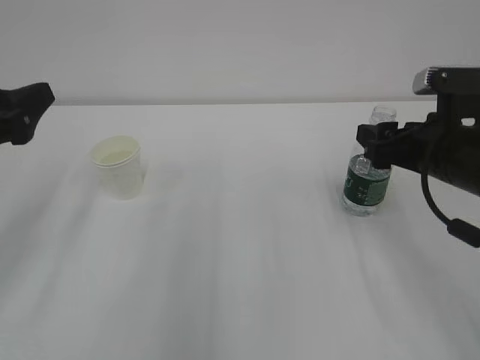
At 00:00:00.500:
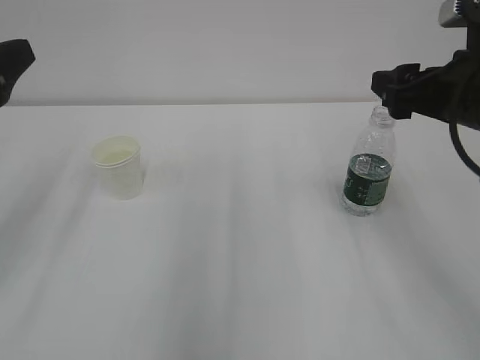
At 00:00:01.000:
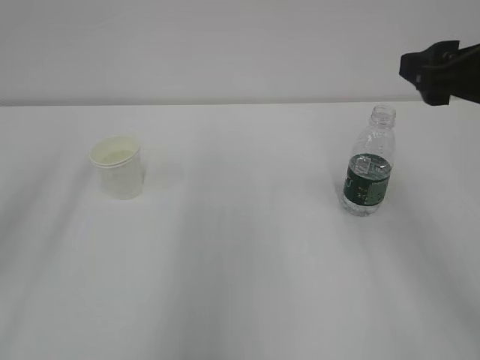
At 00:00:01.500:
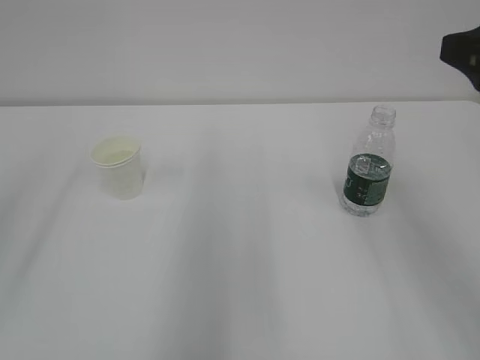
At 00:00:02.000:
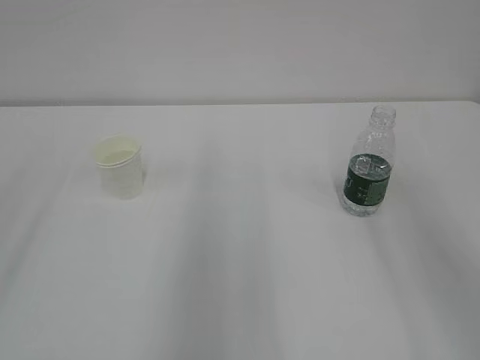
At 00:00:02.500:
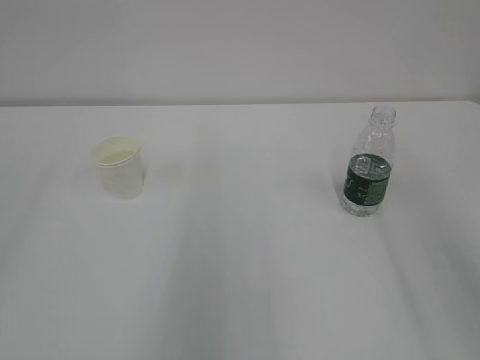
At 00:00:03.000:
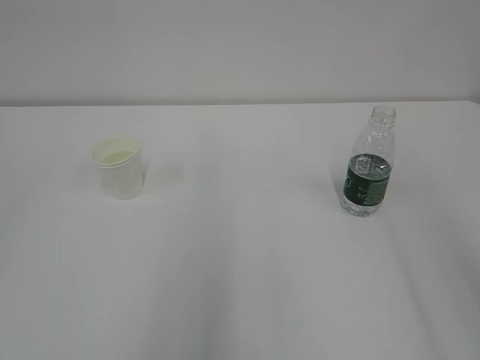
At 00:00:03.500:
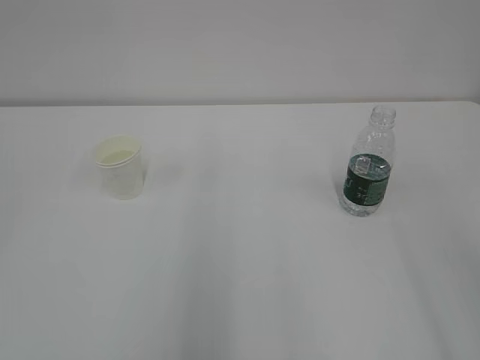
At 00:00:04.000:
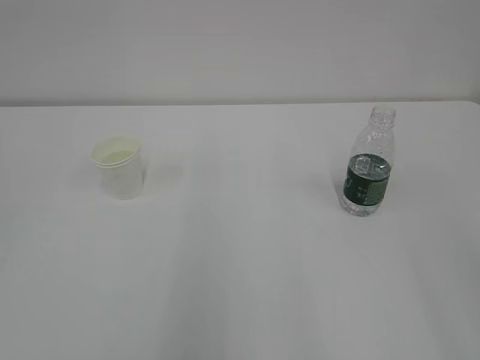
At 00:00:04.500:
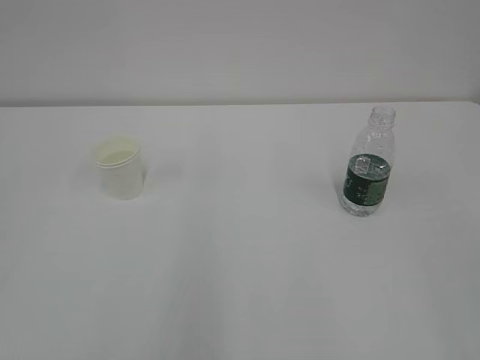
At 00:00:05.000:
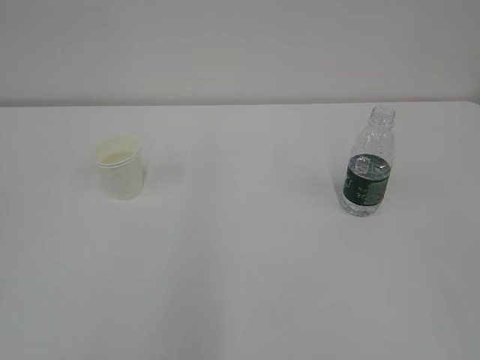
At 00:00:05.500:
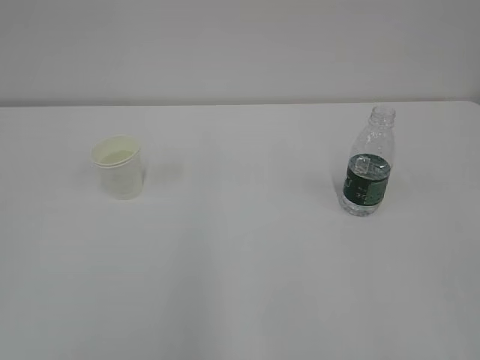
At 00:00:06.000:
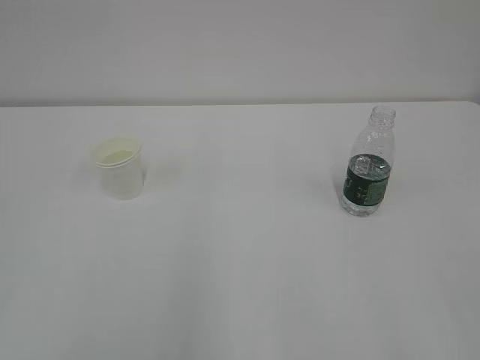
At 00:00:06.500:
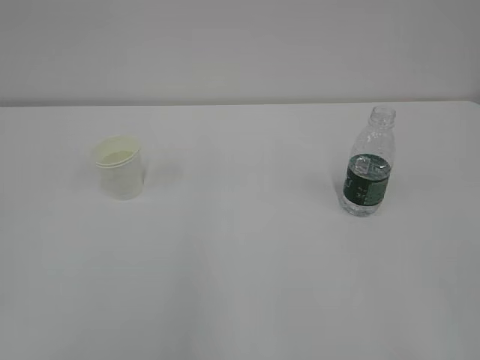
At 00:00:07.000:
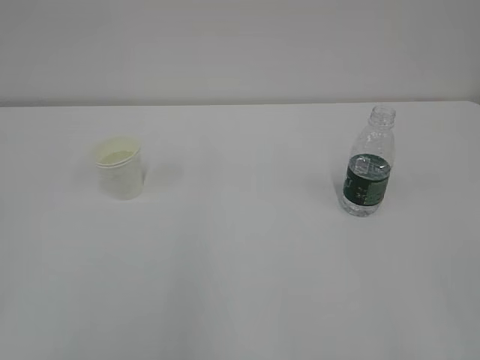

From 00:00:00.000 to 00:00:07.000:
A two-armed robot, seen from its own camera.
From 00:00:00.000 to 00:00:02.000: The right gripper travels upward and backward by about 20 cm. Meanwhile the left gripper is displaced backward and upward by approximately 15 cm.
